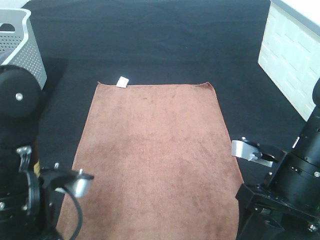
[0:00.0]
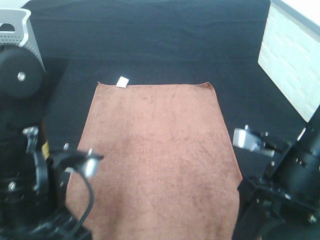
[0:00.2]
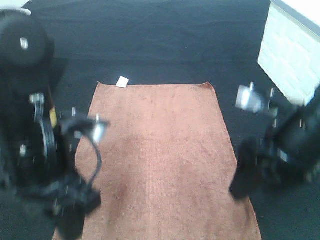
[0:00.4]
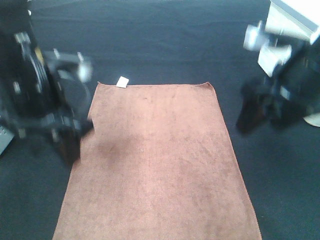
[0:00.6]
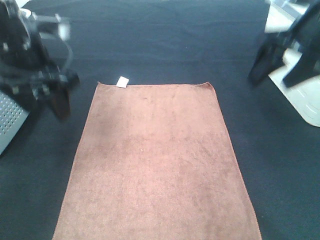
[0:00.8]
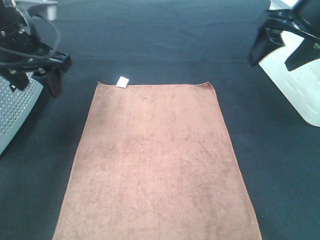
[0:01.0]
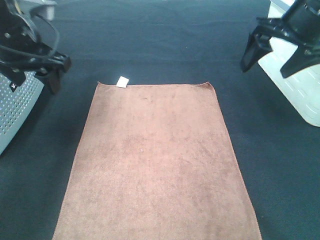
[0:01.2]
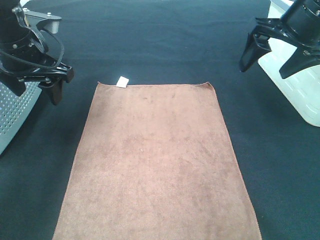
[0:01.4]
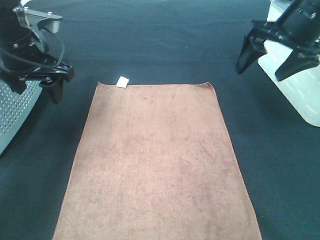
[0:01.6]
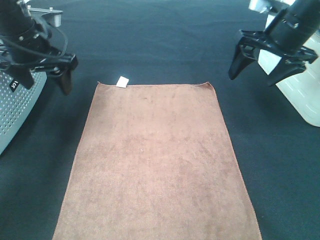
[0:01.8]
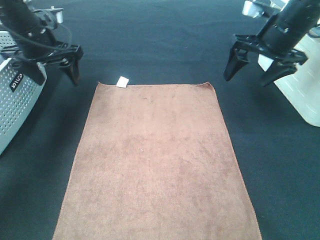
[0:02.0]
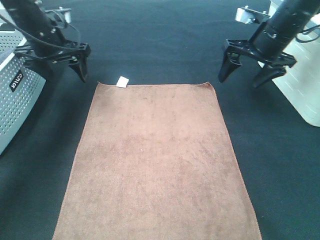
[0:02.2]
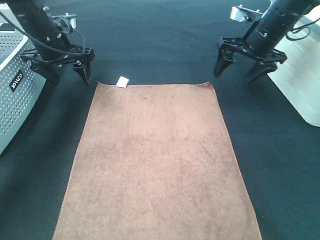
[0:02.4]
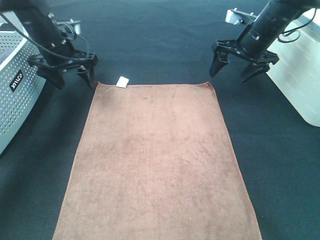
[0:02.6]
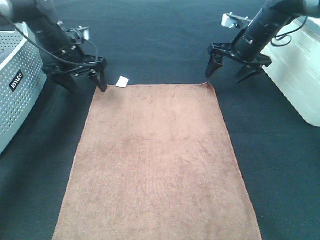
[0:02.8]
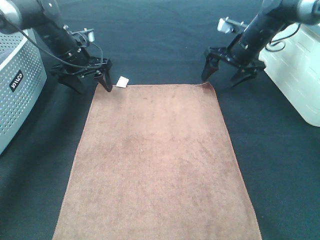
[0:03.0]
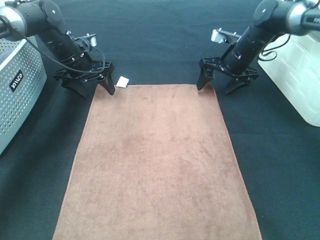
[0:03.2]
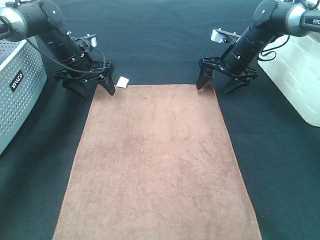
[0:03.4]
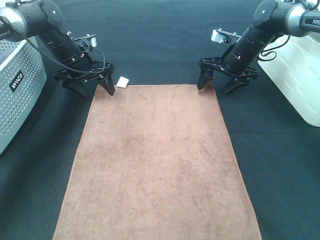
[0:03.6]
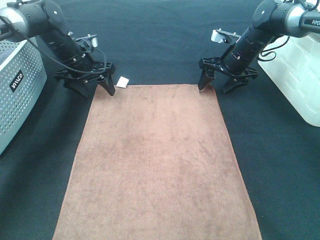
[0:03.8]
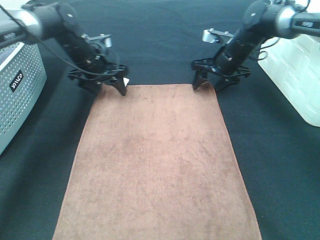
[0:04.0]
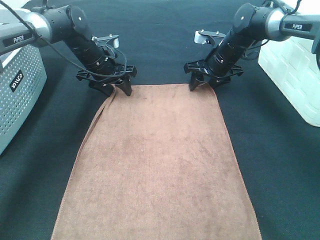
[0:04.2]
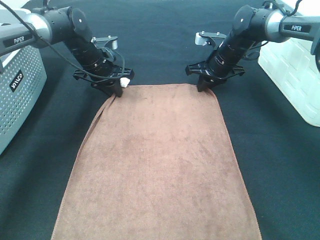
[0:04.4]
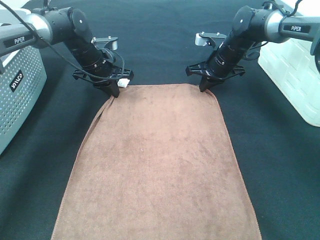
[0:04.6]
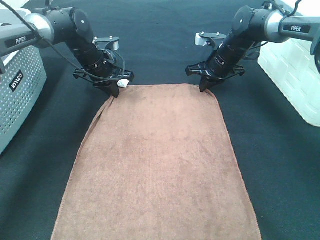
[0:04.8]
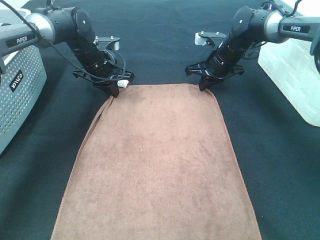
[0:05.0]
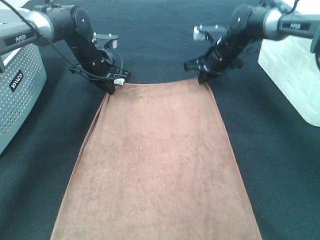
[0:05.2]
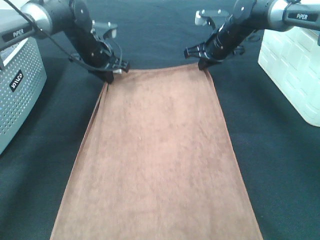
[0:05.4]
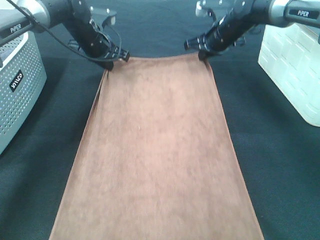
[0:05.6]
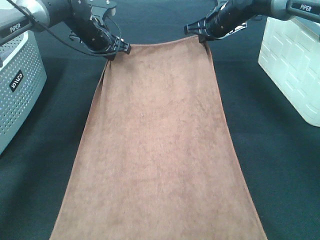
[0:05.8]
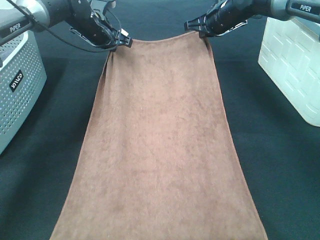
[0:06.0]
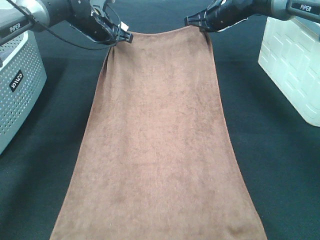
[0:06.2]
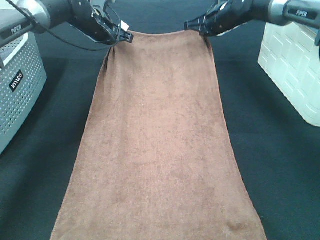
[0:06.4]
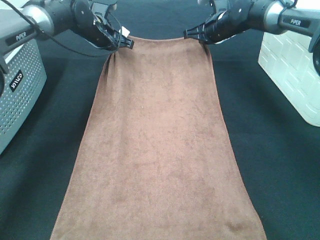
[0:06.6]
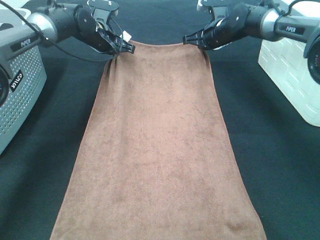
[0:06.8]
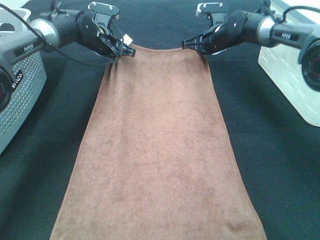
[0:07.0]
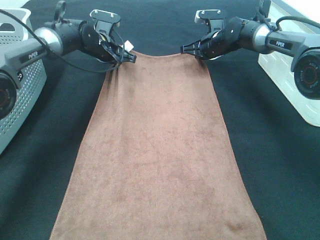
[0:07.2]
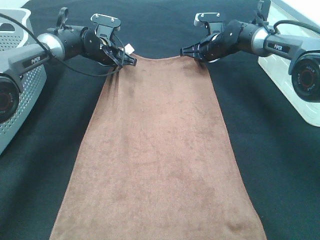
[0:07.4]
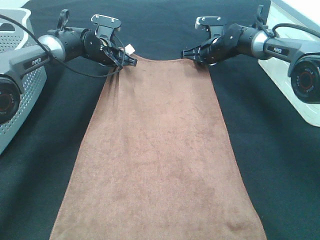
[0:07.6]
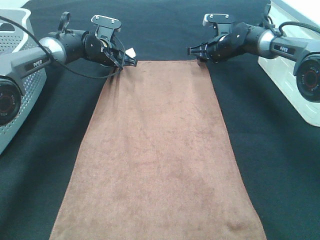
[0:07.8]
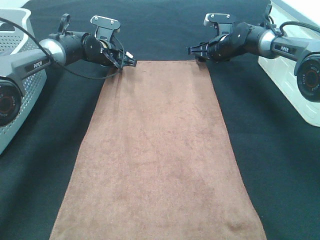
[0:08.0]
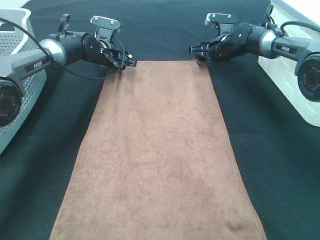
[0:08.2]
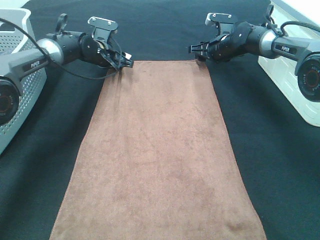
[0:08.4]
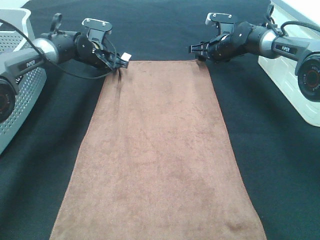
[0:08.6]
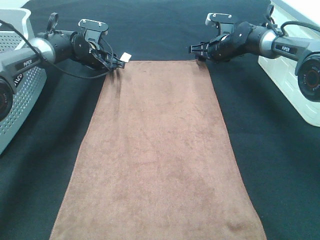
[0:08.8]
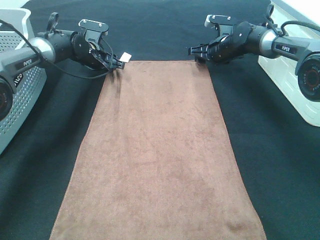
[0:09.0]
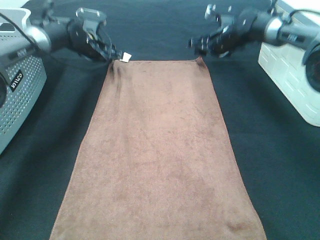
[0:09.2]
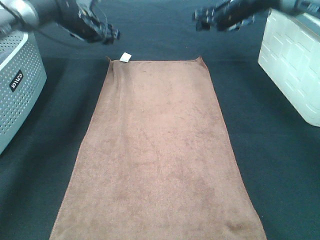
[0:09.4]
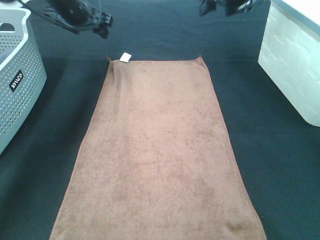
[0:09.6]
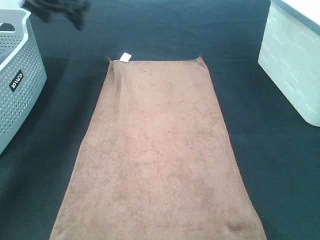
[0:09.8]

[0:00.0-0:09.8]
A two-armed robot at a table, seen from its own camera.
Task of the whole recording: Remove the towel and place it.
Step, 0.0 to 3.0 s: Left hand:adjust the brown towel.
Step, 0.0 to 3.0 s: Right hand:adjust the brown towel.
0.0 to 1.4 s: The right gripper heads forward and upward, covering roughly 20 cm, while the left gripper moves forward, approximately 20 cm.
1.4 to 2.8 s: The two grippers go approximately 20 cm forward and downward.
2.8 to 4.2 s: The left gripper travels to the right by roughly 5 cm. The right gripper goes about 5 cm to the left.
4.2 to 5.6 s: The left gripper ends up roughly 5 cm from where it was, and closes its fingers. Meanwhile the right gripper goes about 5 cm upward, and closes up.
5.6 to 7.0 s: The right gripper ends up roughly 5 cm from where it was.
7.0 to 8.4 s: The left gripper opens its fingers, while the right gripper opens.
8.4 to 9.8 s: The grippers both shift upward by approximately 25 cm.

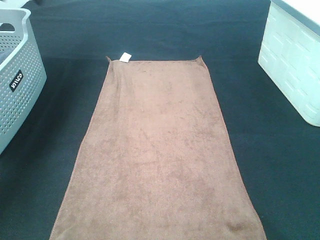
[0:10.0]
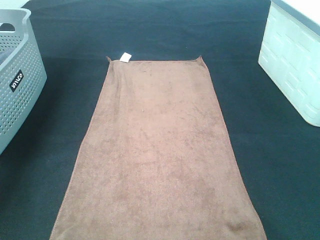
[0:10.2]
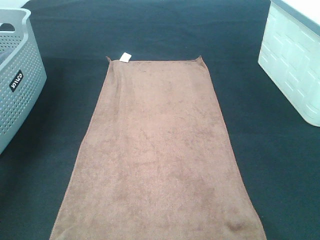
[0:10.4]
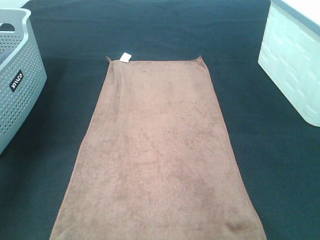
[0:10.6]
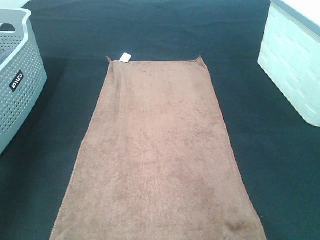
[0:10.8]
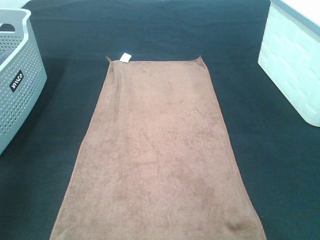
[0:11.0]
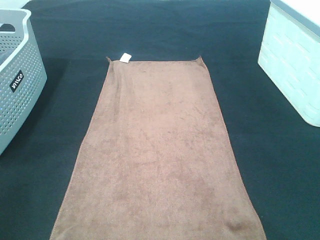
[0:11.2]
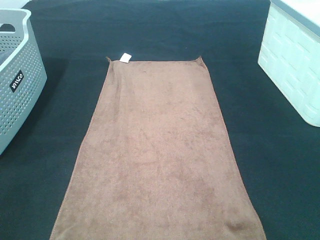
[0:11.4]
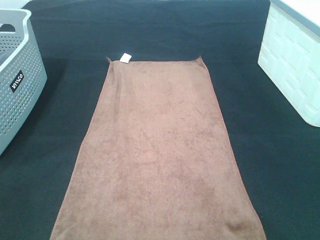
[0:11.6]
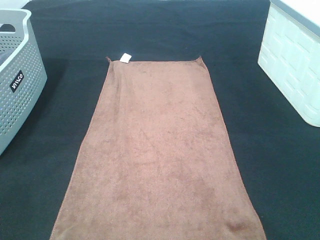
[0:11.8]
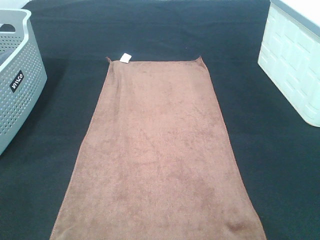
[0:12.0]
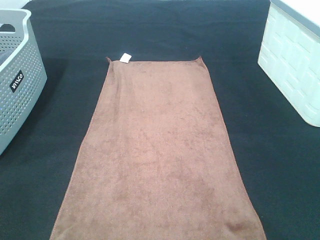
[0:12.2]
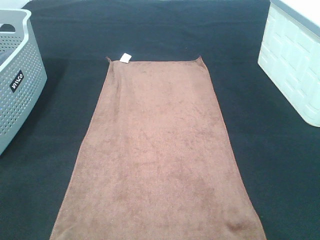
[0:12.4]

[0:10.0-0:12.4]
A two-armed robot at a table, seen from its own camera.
Task of the whole recording: Remove the towel and place it.
10.0 to 11.2 s: The grippers both shift backward by approximately 40 cm.

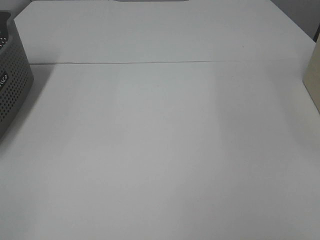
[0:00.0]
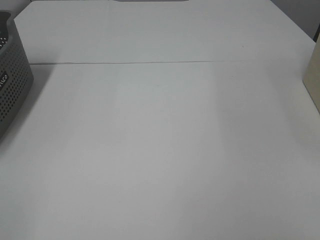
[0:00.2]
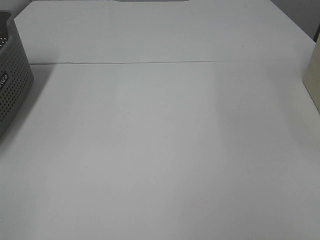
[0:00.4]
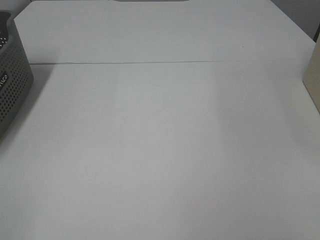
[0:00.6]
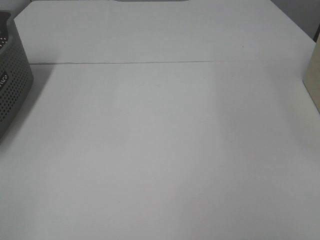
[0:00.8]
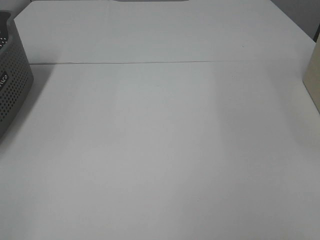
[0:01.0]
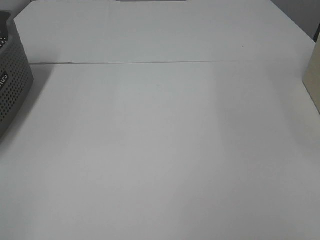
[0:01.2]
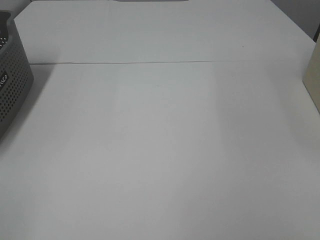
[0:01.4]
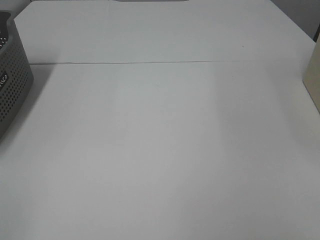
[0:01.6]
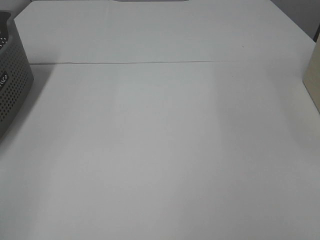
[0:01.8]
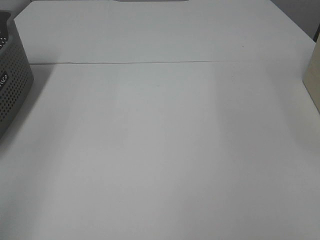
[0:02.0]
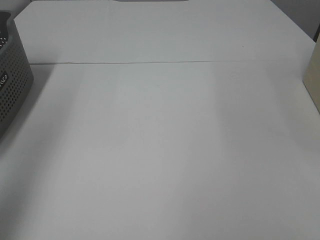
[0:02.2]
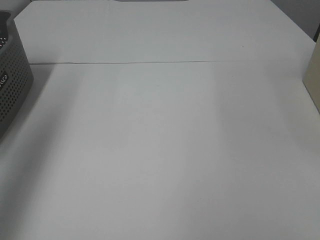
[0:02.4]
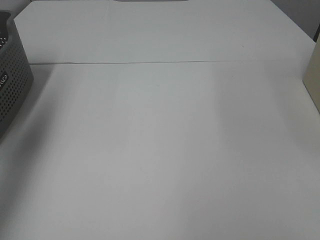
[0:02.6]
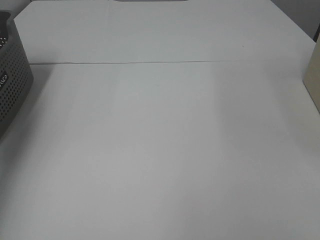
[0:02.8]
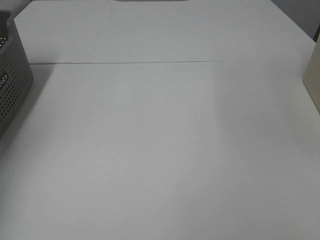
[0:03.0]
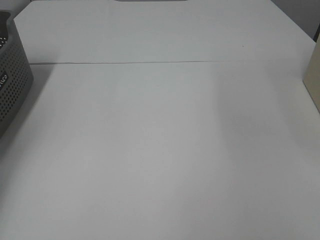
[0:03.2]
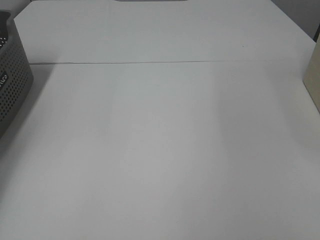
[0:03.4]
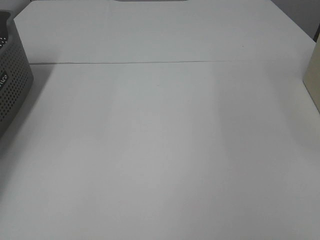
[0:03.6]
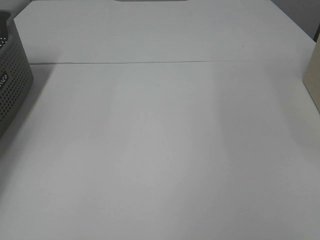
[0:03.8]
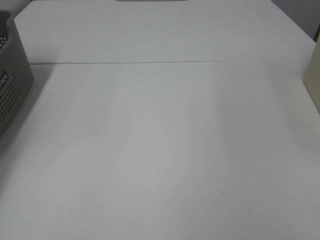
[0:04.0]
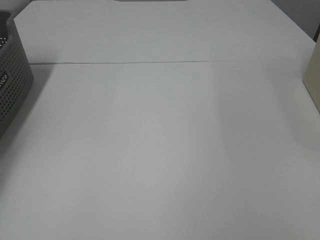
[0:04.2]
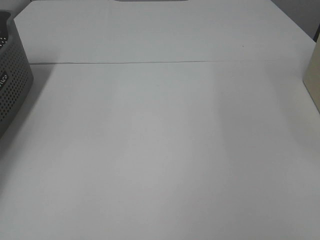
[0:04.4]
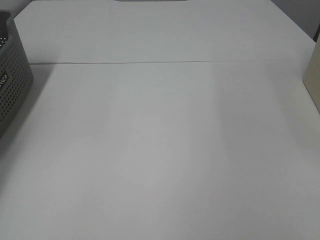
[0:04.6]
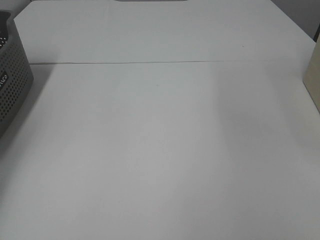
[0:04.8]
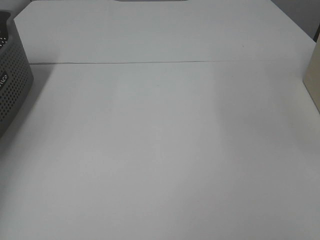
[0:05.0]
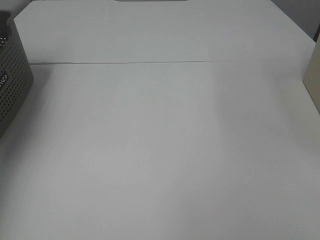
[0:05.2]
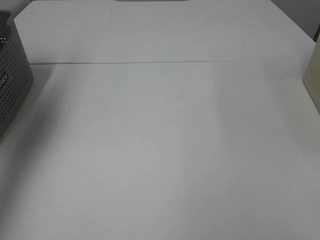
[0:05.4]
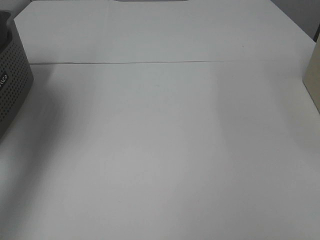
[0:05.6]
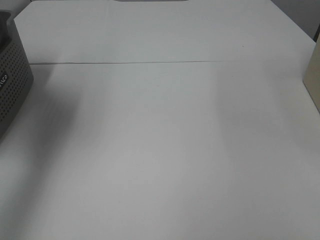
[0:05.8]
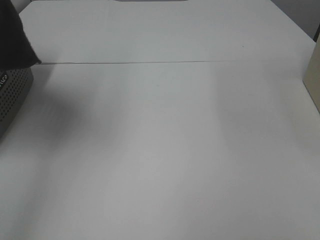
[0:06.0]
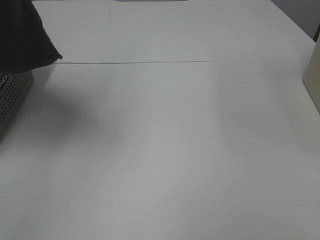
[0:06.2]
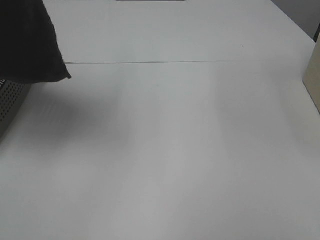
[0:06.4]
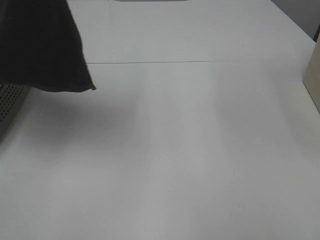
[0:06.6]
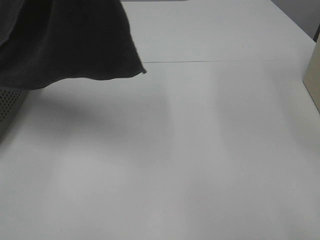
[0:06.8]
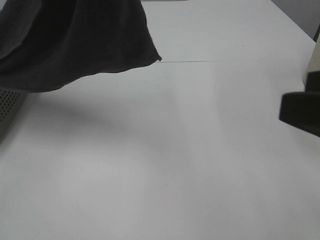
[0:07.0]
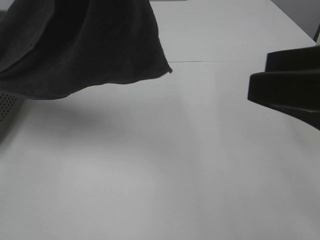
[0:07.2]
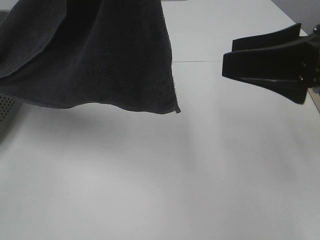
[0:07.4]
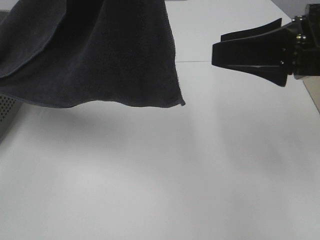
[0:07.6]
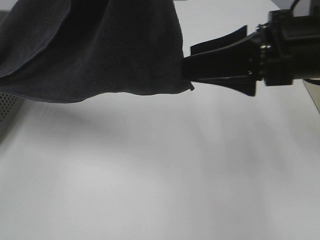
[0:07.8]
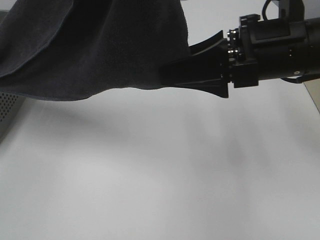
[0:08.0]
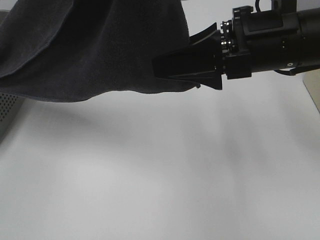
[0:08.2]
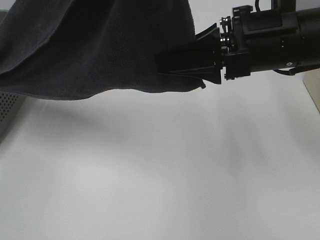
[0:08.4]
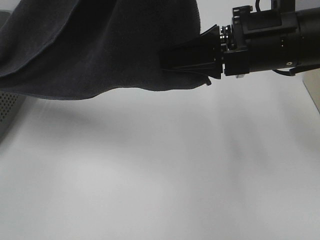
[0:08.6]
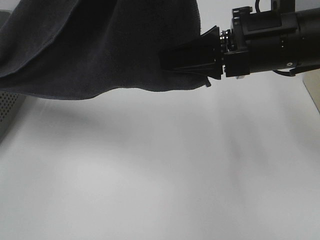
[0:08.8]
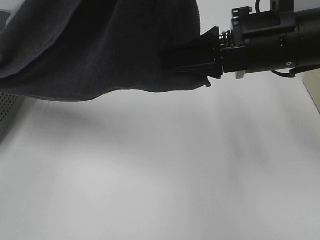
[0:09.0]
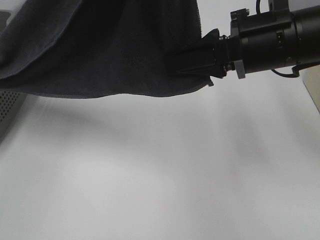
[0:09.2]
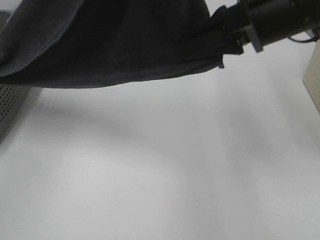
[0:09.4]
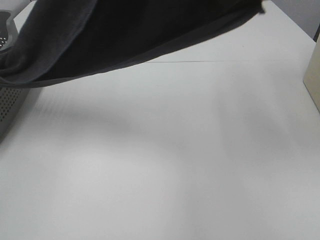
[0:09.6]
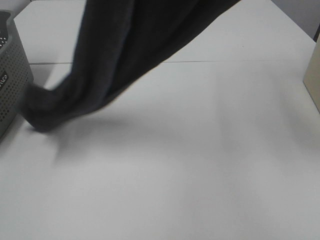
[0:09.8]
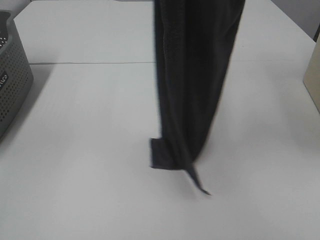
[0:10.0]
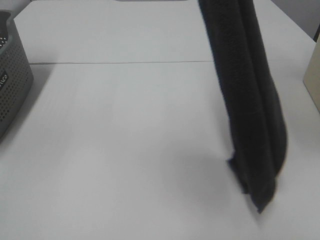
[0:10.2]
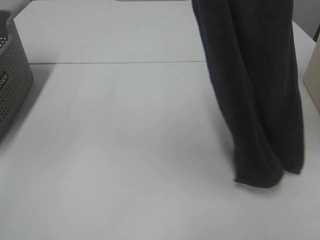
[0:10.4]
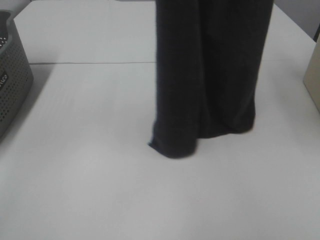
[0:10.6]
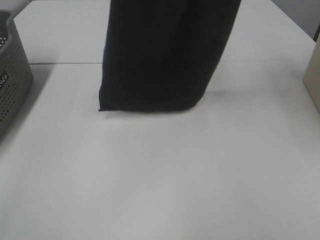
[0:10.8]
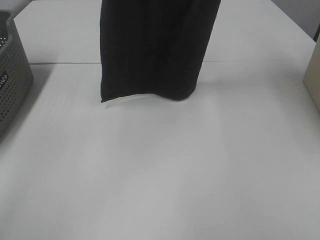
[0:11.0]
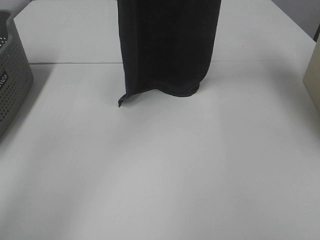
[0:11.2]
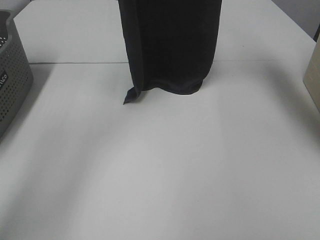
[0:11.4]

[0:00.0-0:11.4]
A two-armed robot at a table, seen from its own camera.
Task of the whole recording: Remove the towel and place it.
Step, 6.2 to 9.2 s: Right hand: grab a corner of the grey towel and straighten it.
0.0 to 1.4 s: Both grippers stay put.
1.4 to 2.8 s: The left gripper is displaced forward by approximately 35 cm.
2.8 to 4.2 s: The left gripper is displaced downward and forward by some 20 cm, and closes up.
4.2 to 5.6 s: The left gripper moves upward, to the right and backward, roughly 35 cm.
5.6 to 7.2 s: The left gripper goes about 25 cm to the right and backward; the right gripper is displaced forward and to the left by roughly 15 cm.
7.2 to 8.6 s: The right gripper moves forward and to the left, about 15 cm, and closes its fingers.
8.6 to 10.0 s: The right gripper shifts roughly 25 cm upward.
10.0 to 11.4 s: The right gripper travels forward by roughly 15 cm; the left gripper moves forward and downward, approximately 25 cm.
